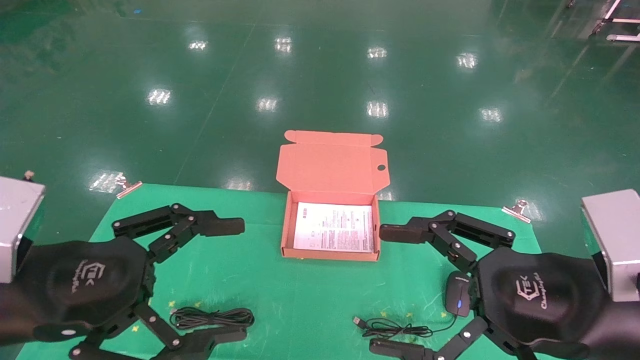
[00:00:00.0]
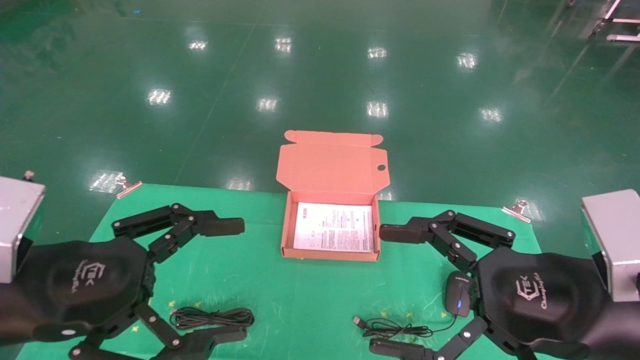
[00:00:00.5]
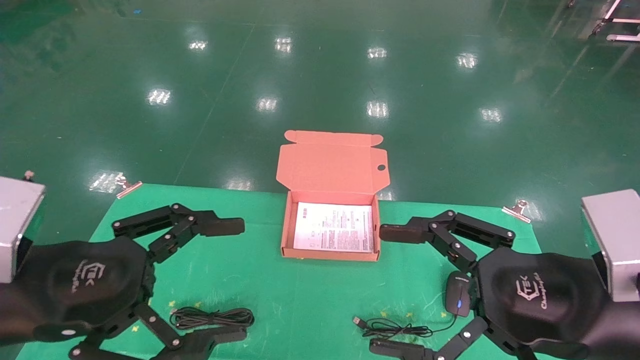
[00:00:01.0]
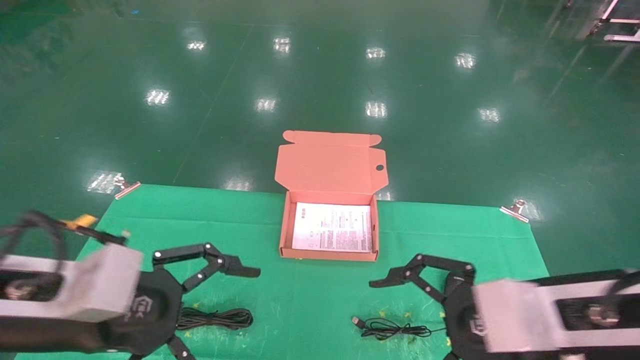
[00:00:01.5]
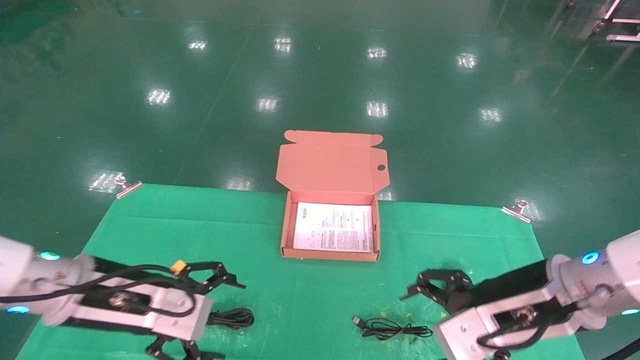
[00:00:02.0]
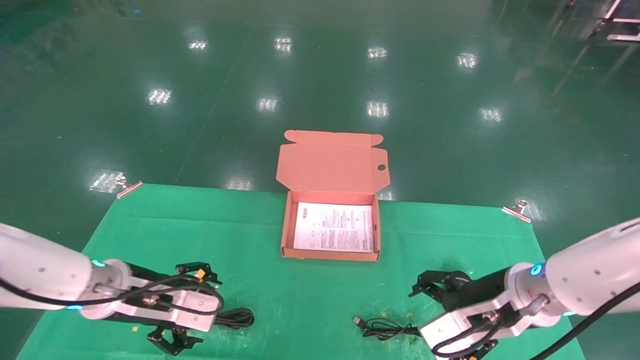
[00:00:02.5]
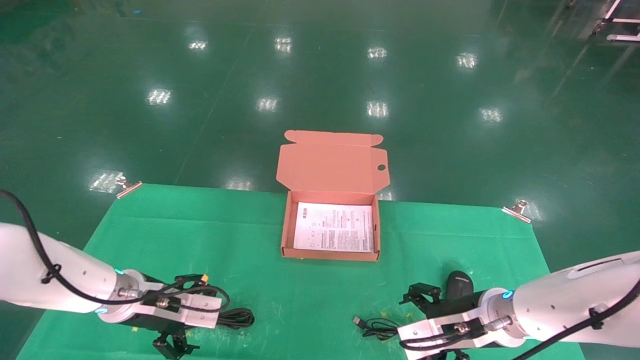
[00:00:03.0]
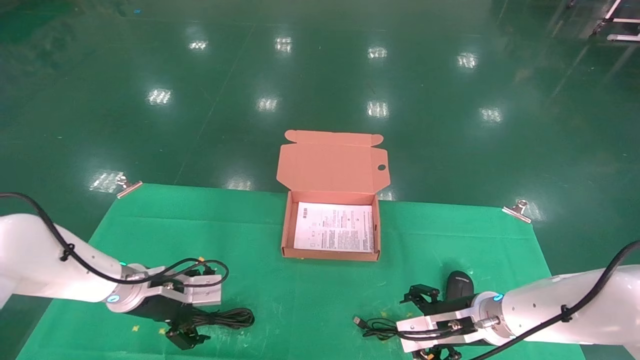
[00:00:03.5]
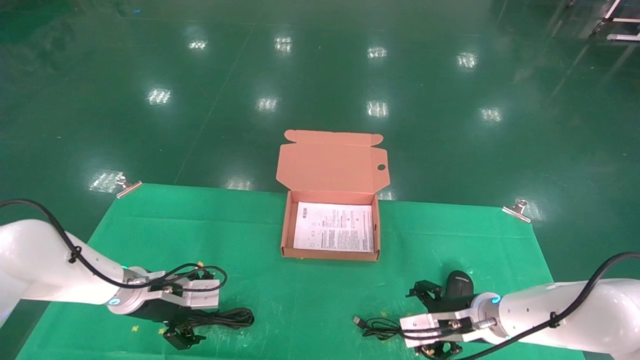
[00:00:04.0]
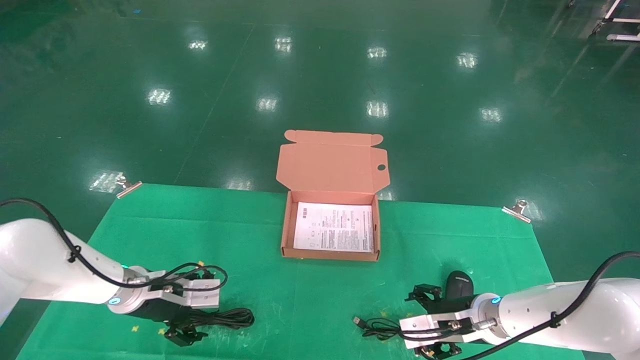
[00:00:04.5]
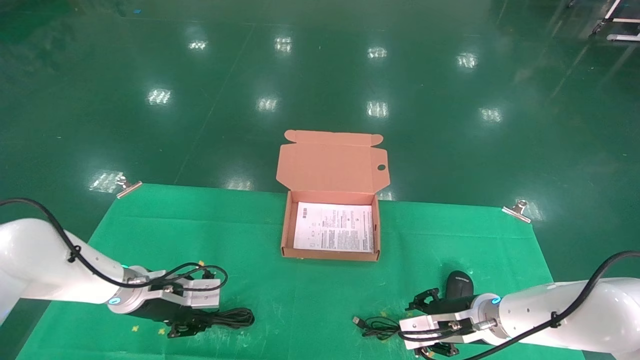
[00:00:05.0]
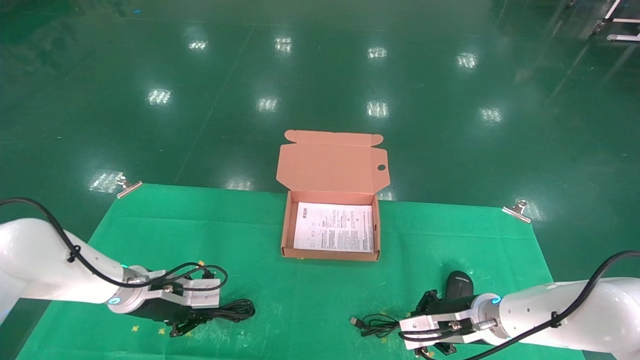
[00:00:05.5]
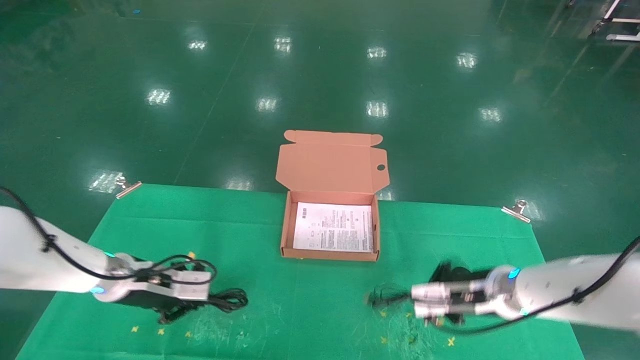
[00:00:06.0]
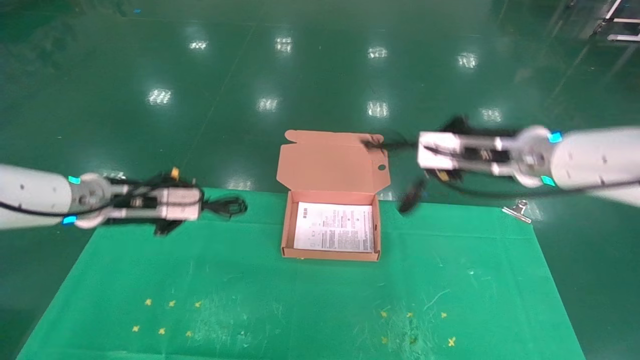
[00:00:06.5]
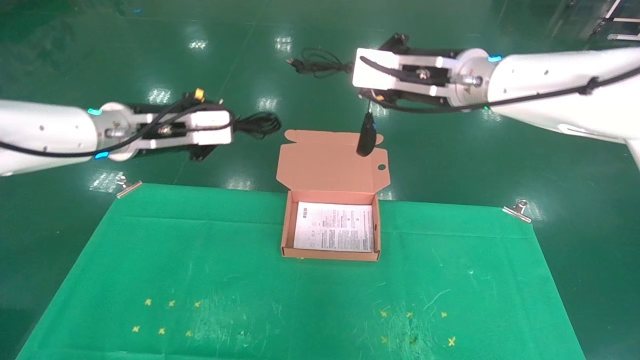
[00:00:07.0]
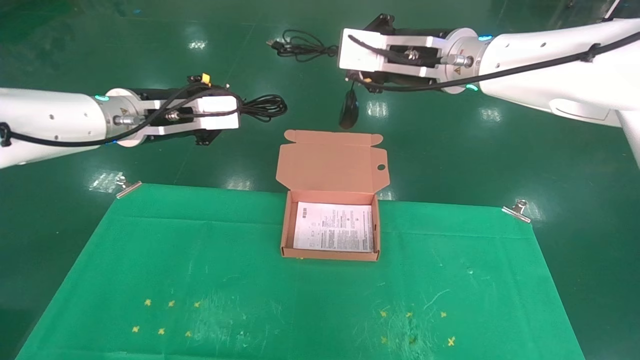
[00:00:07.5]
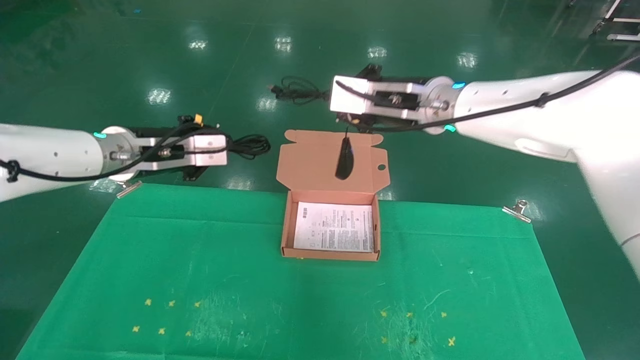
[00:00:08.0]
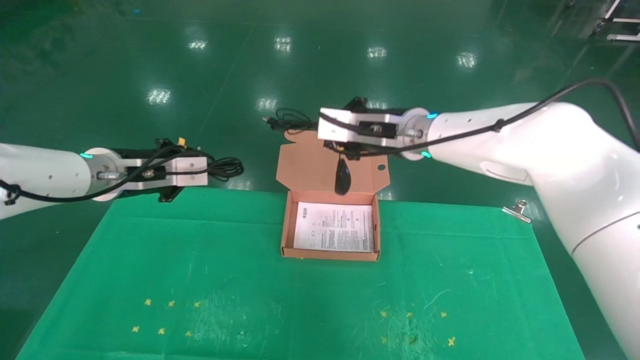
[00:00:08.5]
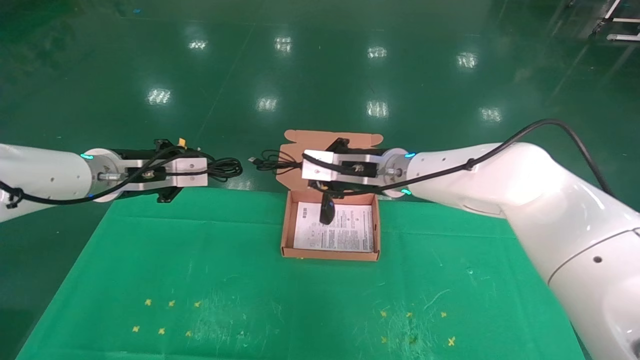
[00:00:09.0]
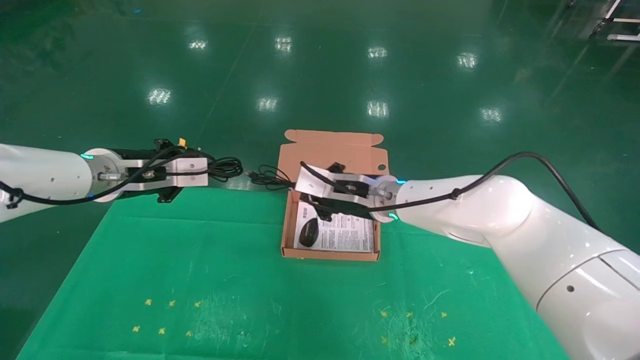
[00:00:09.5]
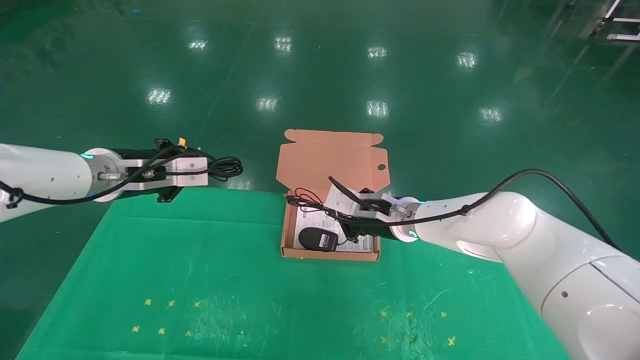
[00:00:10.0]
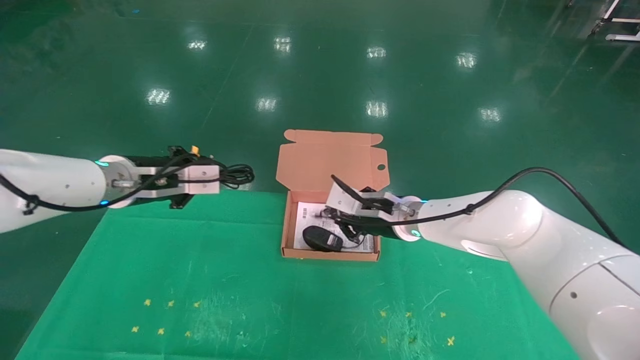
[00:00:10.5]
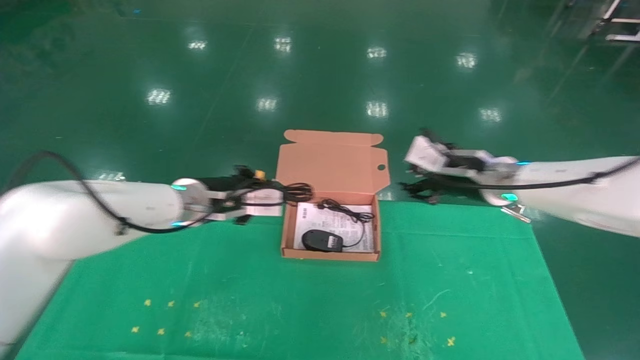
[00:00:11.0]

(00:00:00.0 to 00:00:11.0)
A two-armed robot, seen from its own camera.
Task of the whole recording: grasp data cable left put into box grasp mouse right put into box.
Step, 00:00:01.0 - 00:00:06.0: Grab and pick up both the mouse and power cord from the accessory packaging area at the same time.
00:00:00.0 - 00:00:02.0: The right gripper moves forward, approximately 10 cm; the left gripper shifts roughly 10 cm forward and downward.
00:00:02.0 - 00:00:03.5: The right gripper moves downward and forward, some 15 cm; the left gripper moves forward and downward, approximately 15 cm.
00:00:03.5 - 00:00:05.5: The left gripper closes its fingers; the right gripper closes.
00:00:05.5 - 00:00:07.5: Both grippers move upward, roughly 30 cm.
00:00:07.5 - 00:00:09.0: The left gripper shifts roughly 5 cm downward, while the right gripper is displaced downward by about 15 cm.
00:00:09.0 - 00:00:11.0: The right gripper heads to the right, covering approximately 15 cm, while the left gripper moves to the right, approximately 10 cm.

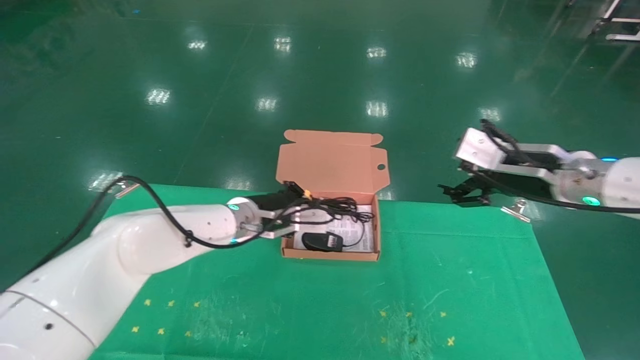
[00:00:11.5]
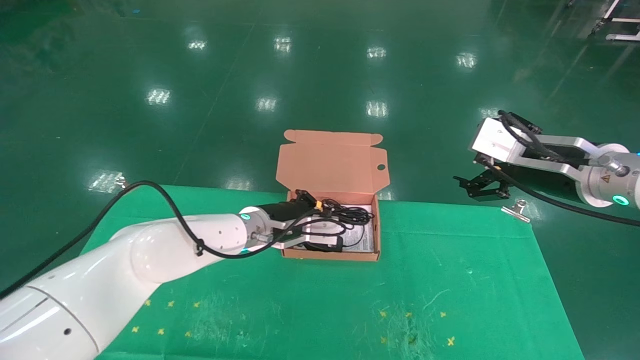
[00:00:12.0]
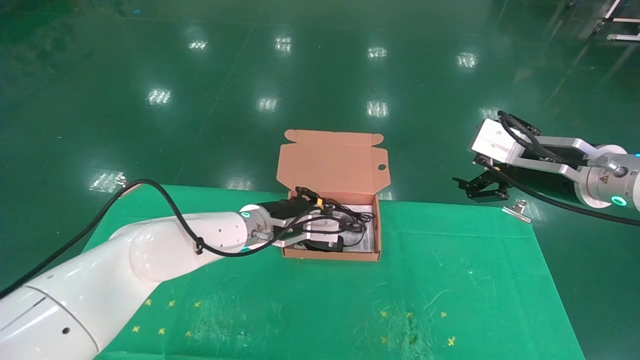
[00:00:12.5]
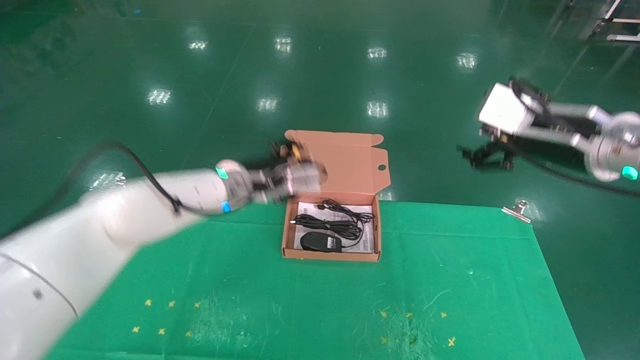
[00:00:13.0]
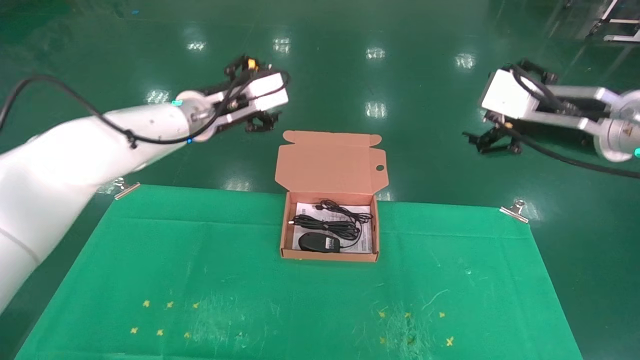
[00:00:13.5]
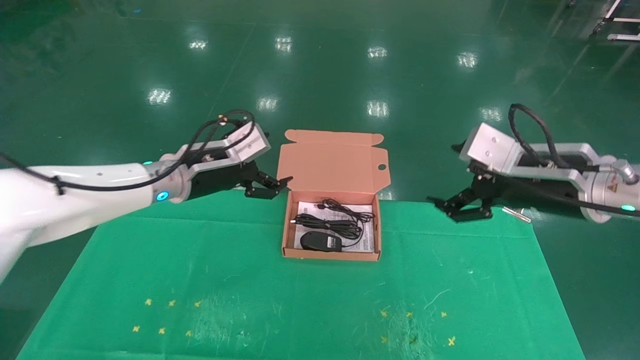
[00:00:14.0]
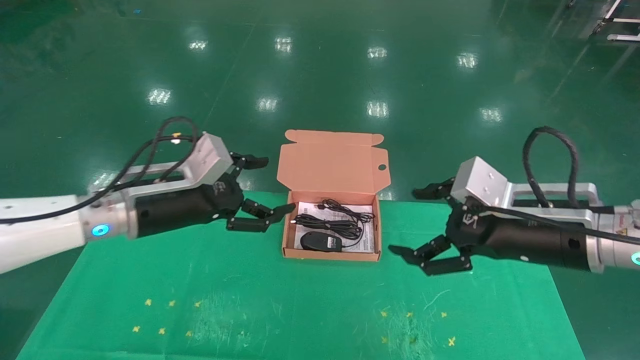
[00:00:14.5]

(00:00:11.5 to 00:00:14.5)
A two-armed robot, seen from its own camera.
Task of the whole recording: grasp data cable left put into box grasp mouse right put into box.
00:00:11.5 - 00:00:13.0: The left gripper opens up; the right gripper moves roughly 5 cm.
00:00:13.0 - 00:00:14.5: The right gripper goes about 10 cm downward and backward. The left gripper travels to the left and backward by about 15 cm, and opens.

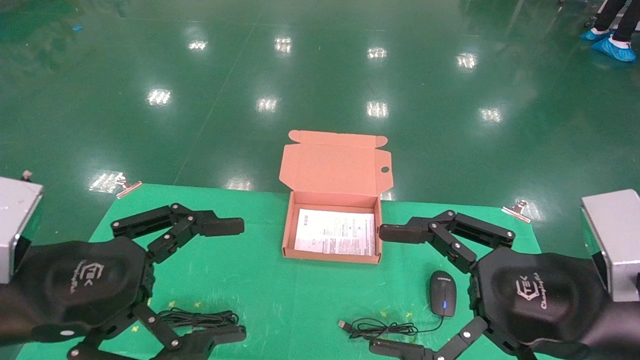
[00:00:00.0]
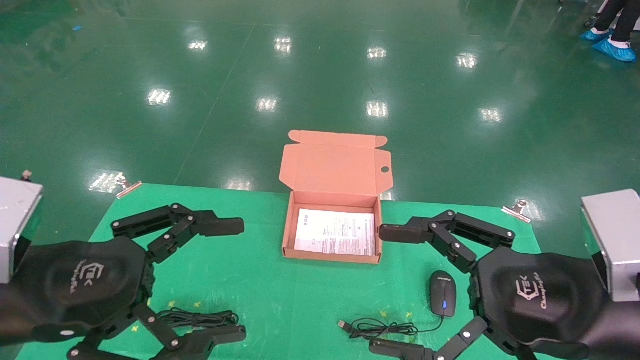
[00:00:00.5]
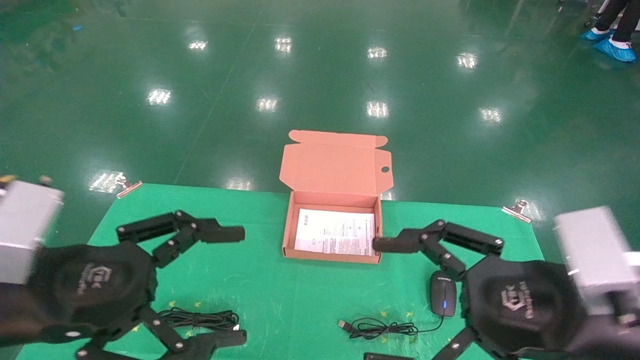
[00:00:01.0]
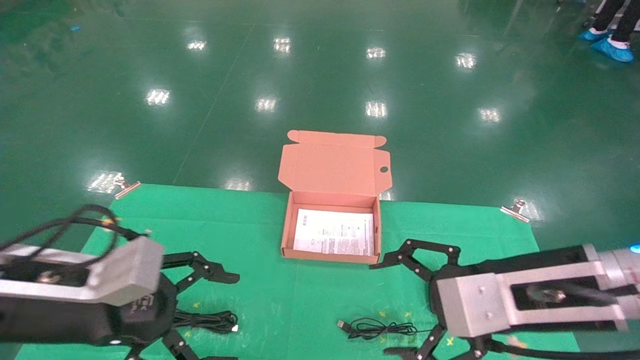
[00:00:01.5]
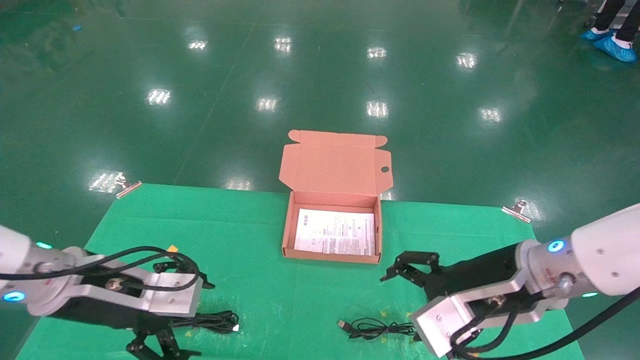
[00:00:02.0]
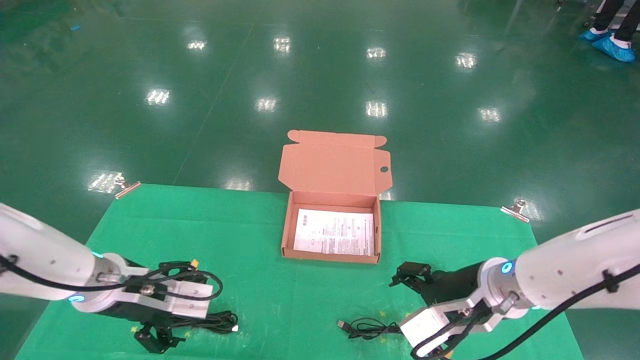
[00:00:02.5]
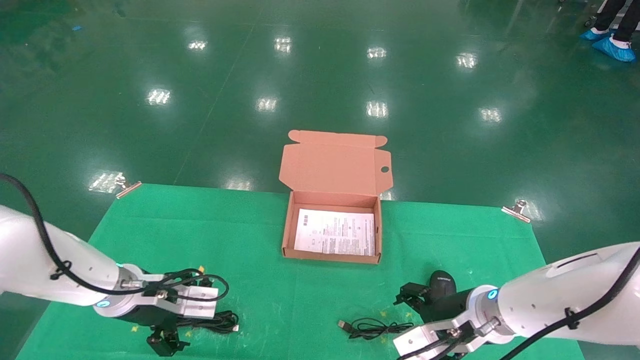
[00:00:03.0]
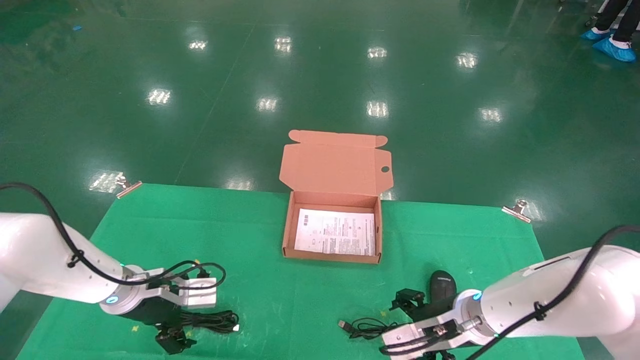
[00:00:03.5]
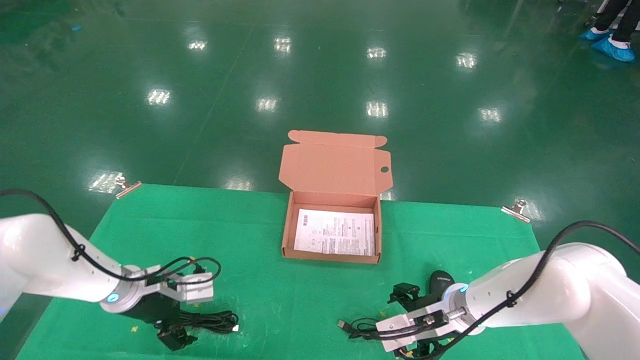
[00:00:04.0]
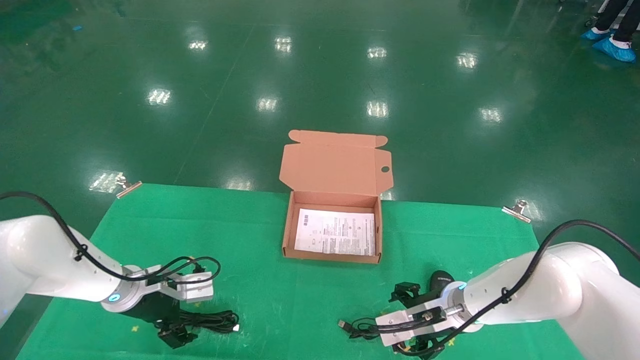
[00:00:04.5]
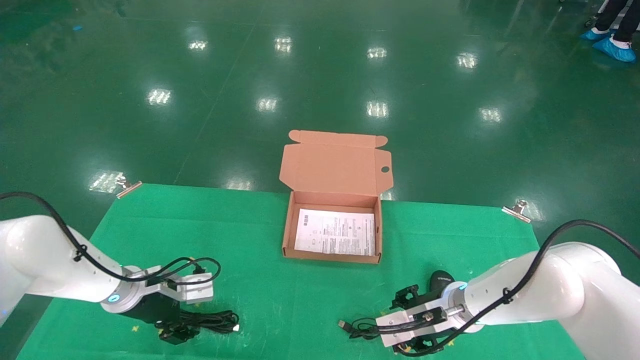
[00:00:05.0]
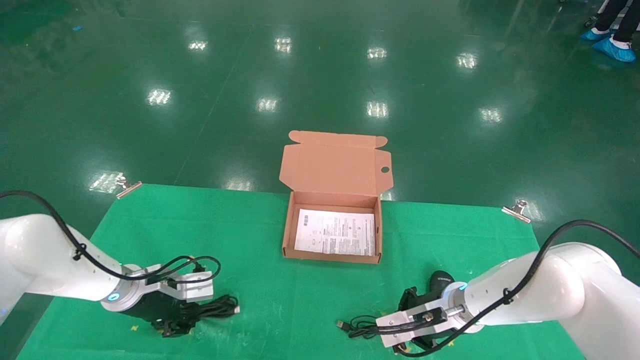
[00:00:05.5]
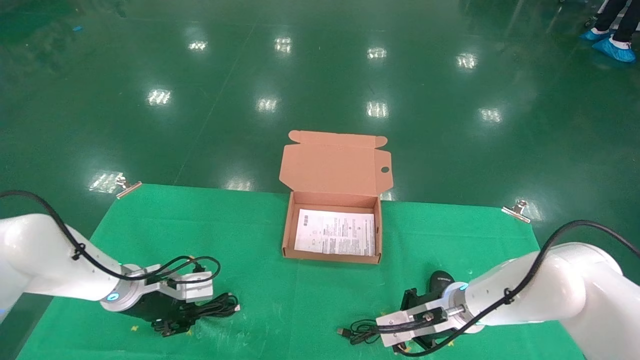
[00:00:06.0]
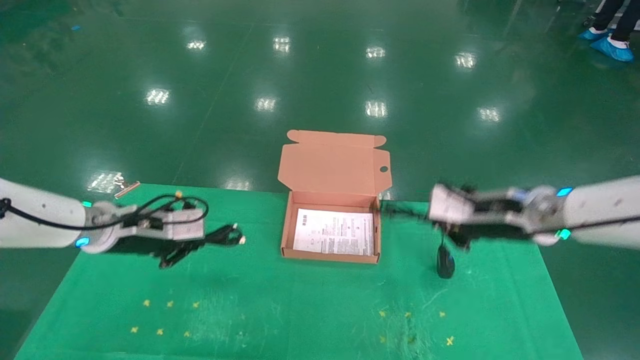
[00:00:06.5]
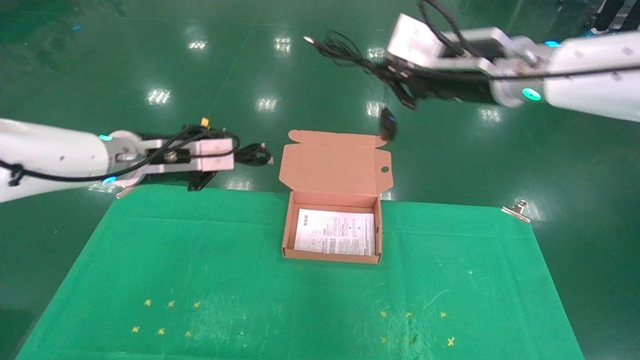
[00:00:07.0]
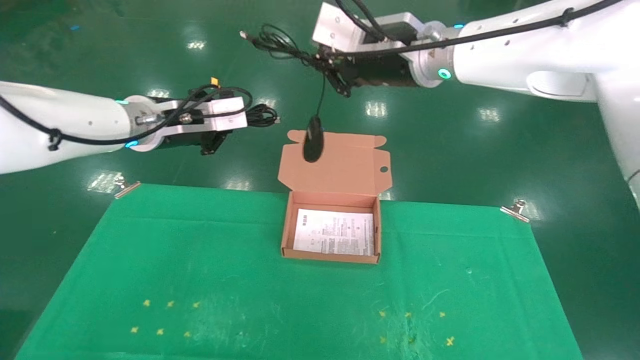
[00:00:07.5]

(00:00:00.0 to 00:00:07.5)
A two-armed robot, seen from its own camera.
Task of the whole recording: grasp data cable left put into box grasp mouse right put into box.
Step, 00:00:01.5 - 00:00:05.5: Grab and pick up both the mouse and power cord from the accessory packaging area at the same time.
00:00:00.0 - 00:00:02.0: The left gripper goes approximately 10 cm forward and downward, while the right gripper goes approximately 10 cm forward.
00:00:02.0 - 00:00:04.0: The right gripper travels downward and forward by roughly 15 cm. The left gripper heads forward and downward, covering some 15 cm.
00:00:04.0 - 00:00:05.5: The right gripper closes. Meanwhile the left gripper closes up.
00:00:05.5 - 00:00:07.5: The grippers both shift upward by roughly 30 cm.
